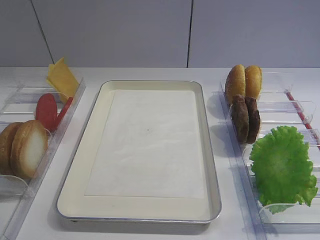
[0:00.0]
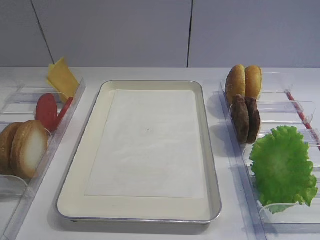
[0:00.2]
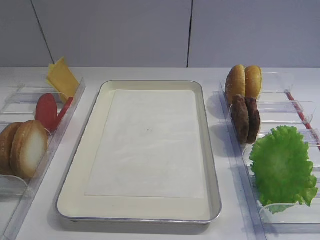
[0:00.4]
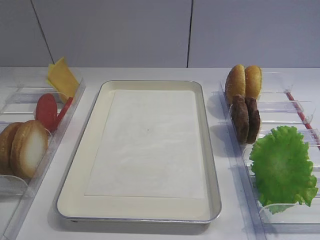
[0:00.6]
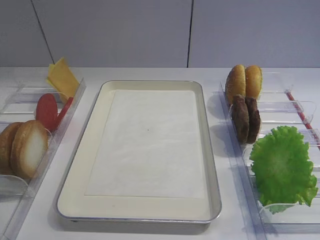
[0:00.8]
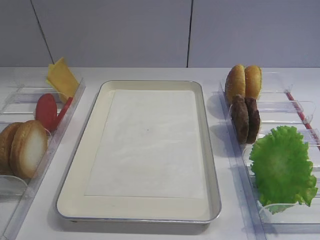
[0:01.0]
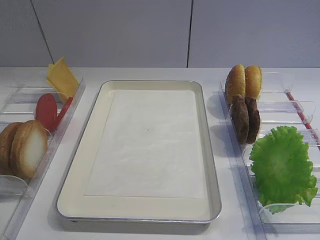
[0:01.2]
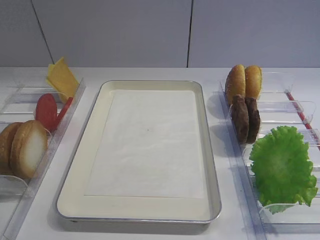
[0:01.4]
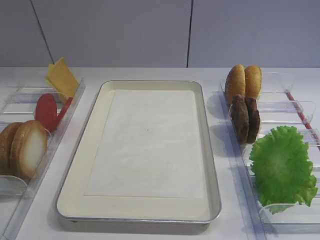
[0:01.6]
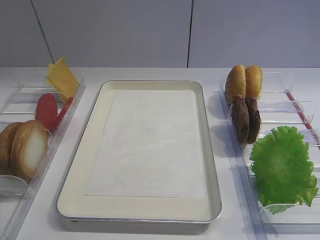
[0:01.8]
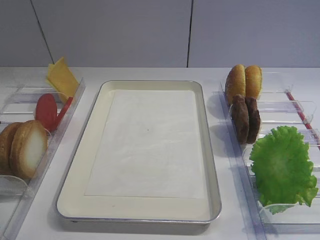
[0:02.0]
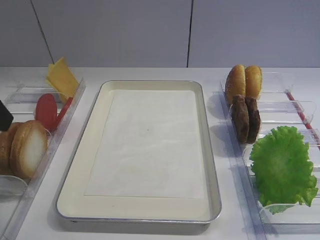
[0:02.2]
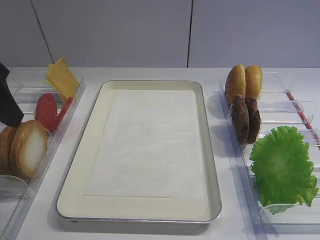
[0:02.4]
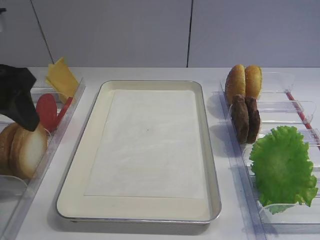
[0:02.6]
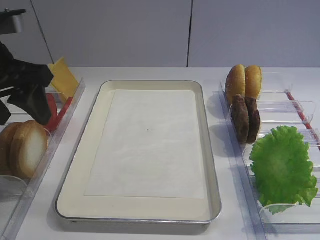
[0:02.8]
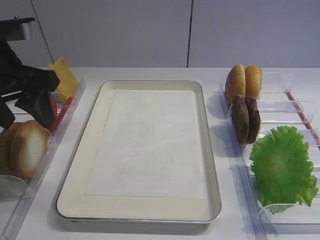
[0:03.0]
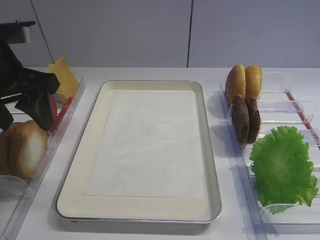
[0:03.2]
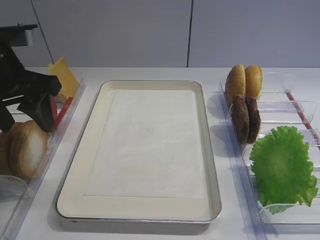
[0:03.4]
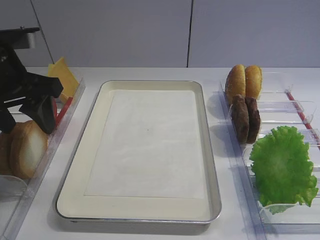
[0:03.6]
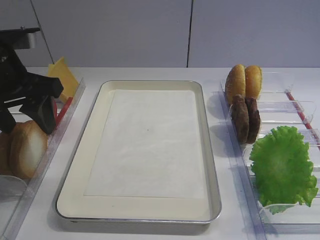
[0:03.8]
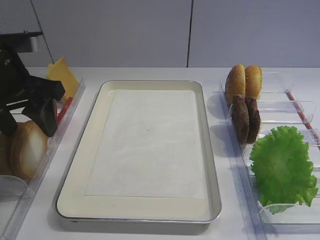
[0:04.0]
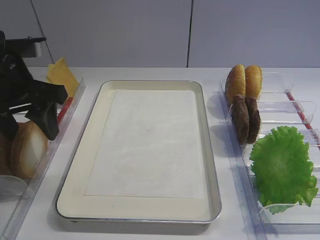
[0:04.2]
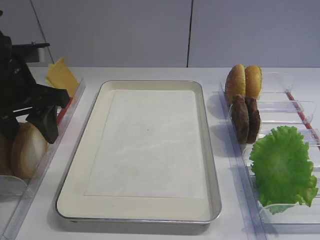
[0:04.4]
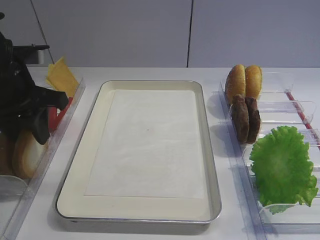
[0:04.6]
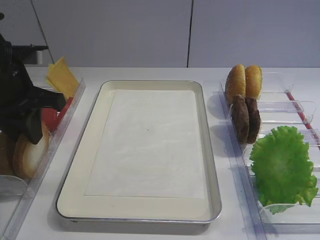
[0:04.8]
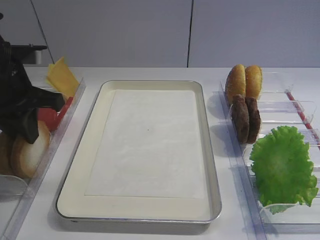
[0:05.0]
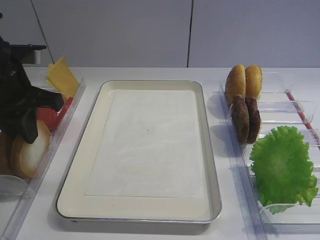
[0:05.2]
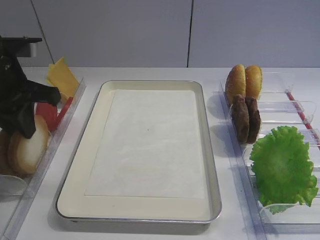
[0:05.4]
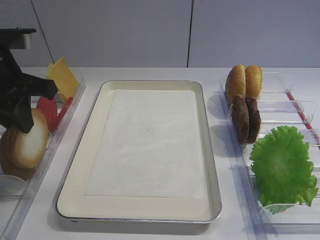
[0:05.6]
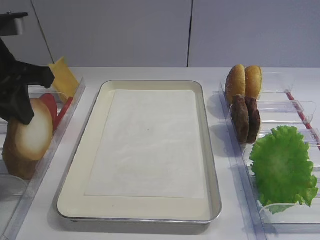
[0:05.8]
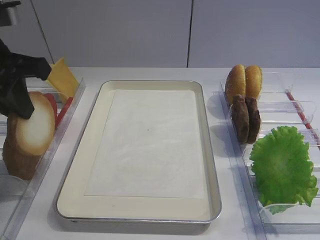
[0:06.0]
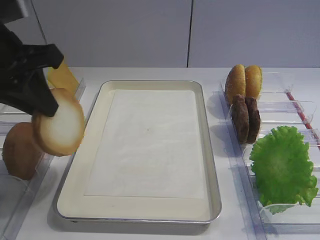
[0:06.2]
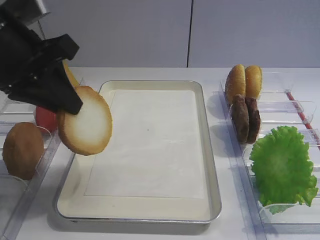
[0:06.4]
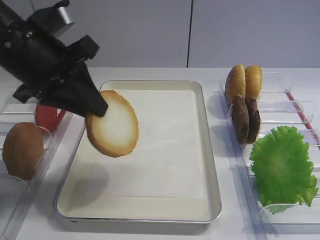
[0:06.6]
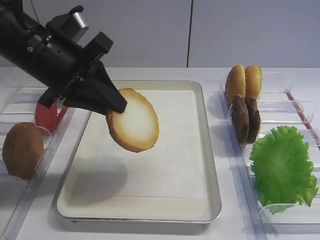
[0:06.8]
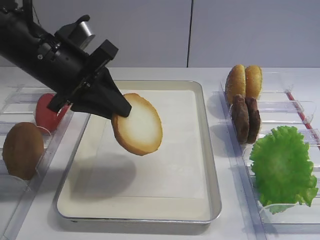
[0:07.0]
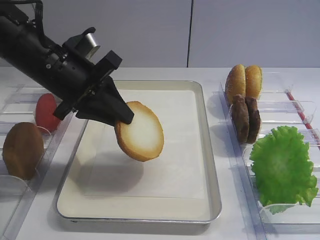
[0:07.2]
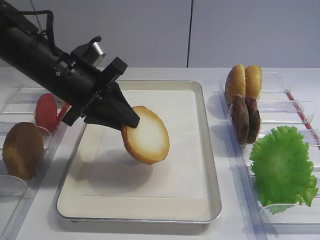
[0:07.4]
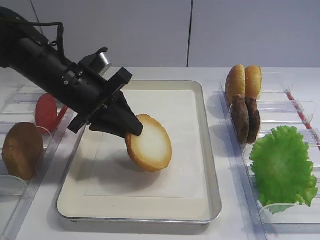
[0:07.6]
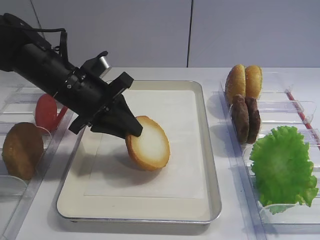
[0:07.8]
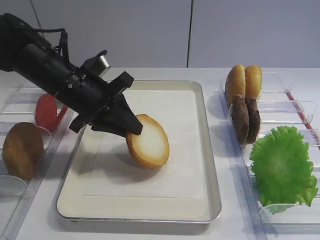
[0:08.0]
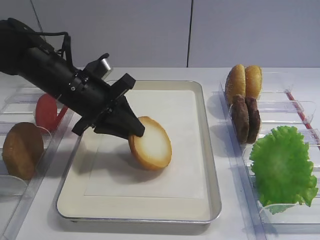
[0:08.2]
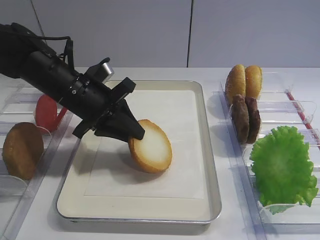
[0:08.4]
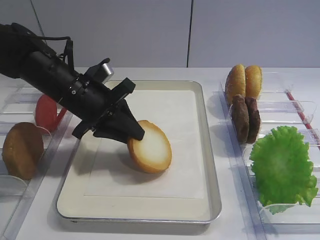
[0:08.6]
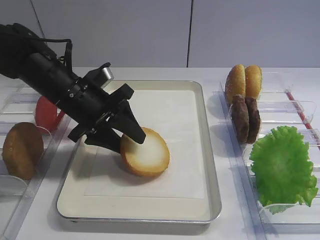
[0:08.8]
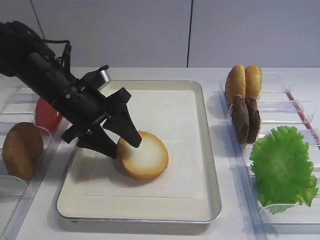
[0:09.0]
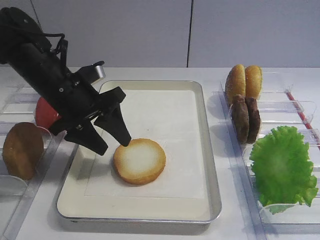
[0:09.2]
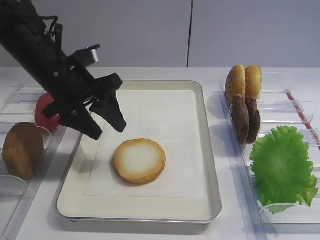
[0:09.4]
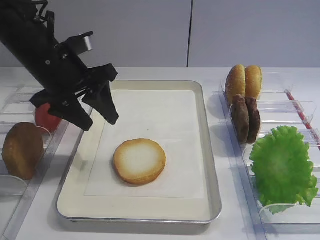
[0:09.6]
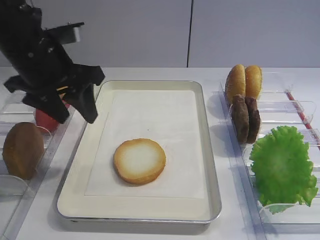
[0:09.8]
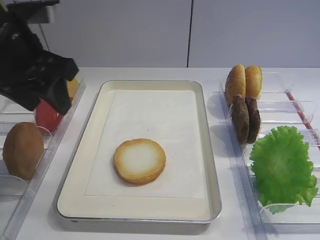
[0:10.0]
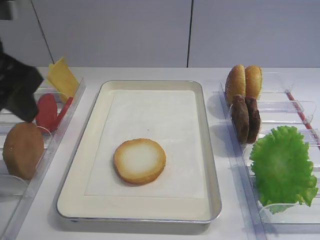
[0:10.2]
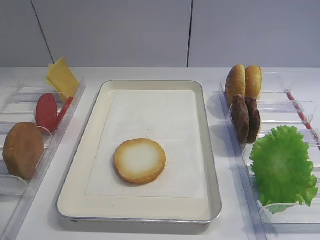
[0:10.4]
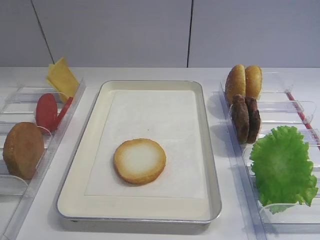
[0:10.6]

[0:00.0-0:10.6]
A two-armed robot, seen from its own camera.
Step, 0:00.0 to 0:05.8: Pick up the bread slice with the left gripper.
Step, 0:06.2 to 0:09.6: Place the bread slice on the tray with the left gripper.
0:01.6 to 0:03.0: The left gripper travels forward by some 15 cm.
0:03.0 to 0:04.6: The left gripper closes its fingers.
0:04.6 to 0:06.0: The left gripper goes approximately 5 cm upward, and closes up.
0:06.0 to 0:07.6: The left gripper travels downward, to the right and forward by some 15 cm.
0:07.6 to 0:09.0: The left gripper opens its fingers.
0:09.0 to 0:10.6: The left gripper moves backward, upward and to the left, roughly 30 cm.

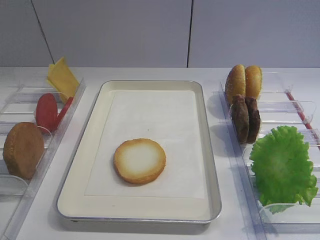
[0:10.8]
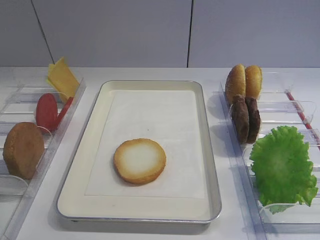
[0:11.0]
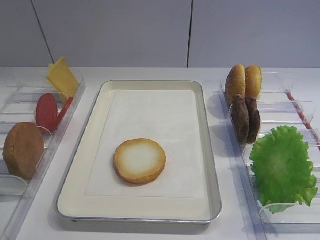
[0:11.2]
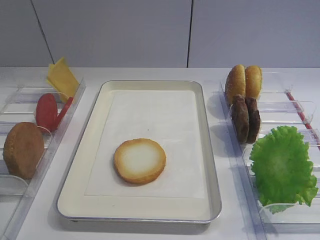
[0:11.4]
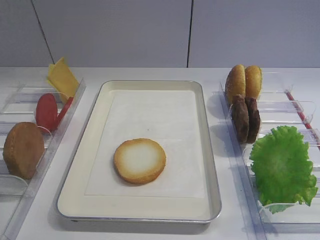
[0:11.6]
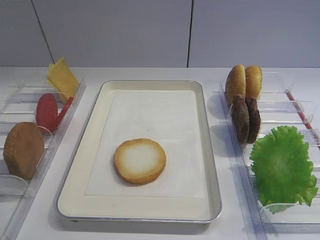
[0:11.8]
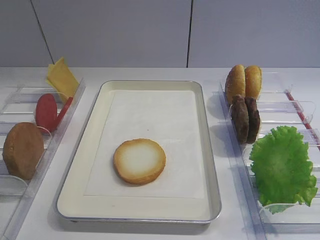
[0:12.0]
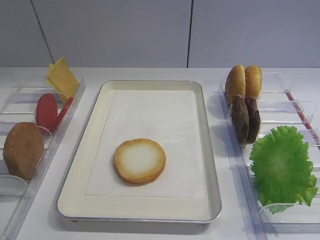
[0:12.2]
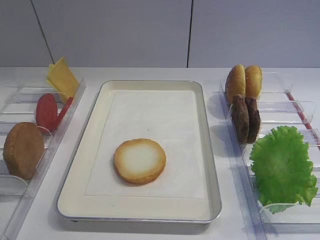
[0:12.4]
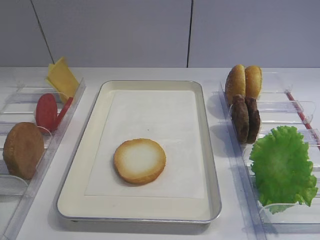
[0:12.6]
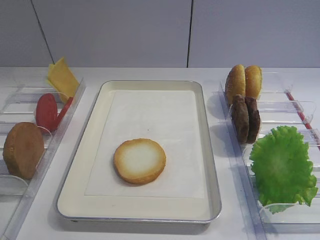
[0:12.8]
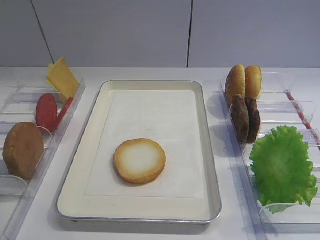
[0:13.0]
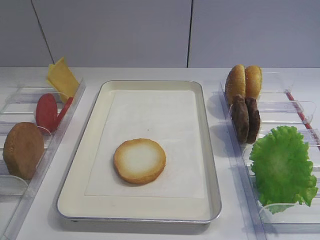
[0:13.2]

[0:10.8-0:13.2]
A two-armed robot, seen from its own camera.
0:12.0 to 0:13.2: Both grippers stay about where they are.

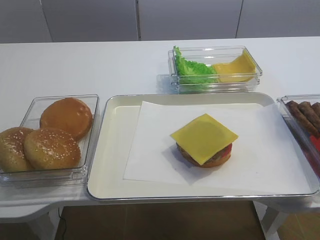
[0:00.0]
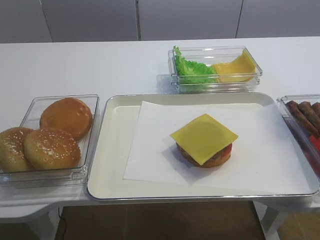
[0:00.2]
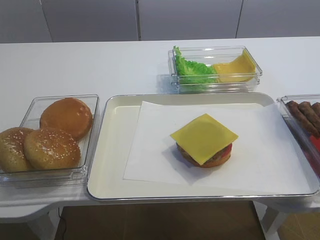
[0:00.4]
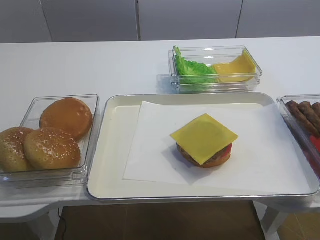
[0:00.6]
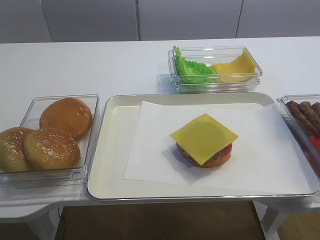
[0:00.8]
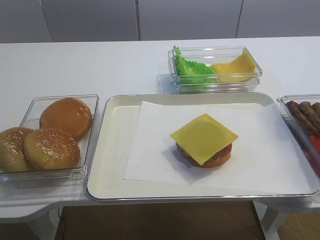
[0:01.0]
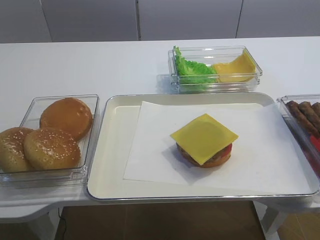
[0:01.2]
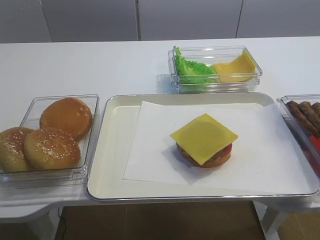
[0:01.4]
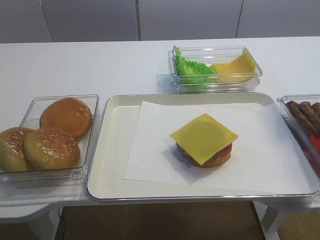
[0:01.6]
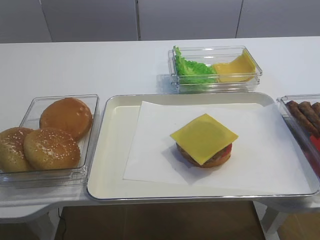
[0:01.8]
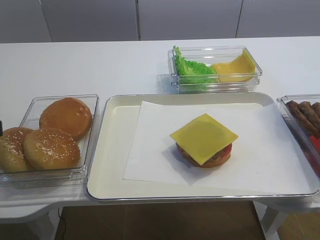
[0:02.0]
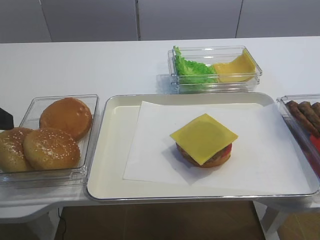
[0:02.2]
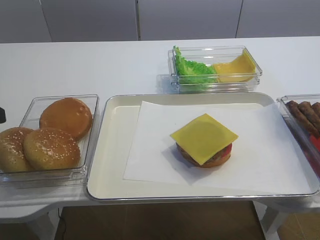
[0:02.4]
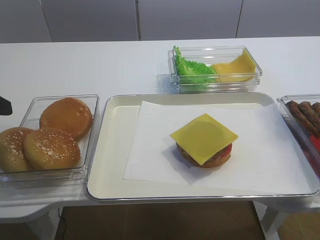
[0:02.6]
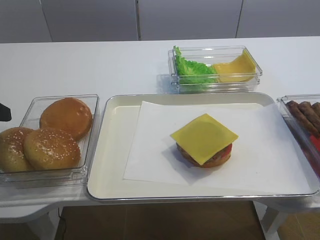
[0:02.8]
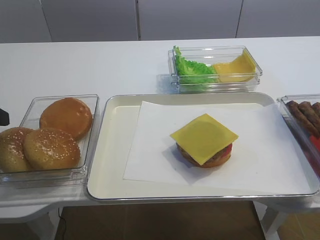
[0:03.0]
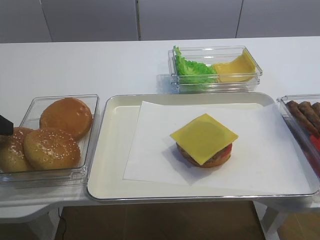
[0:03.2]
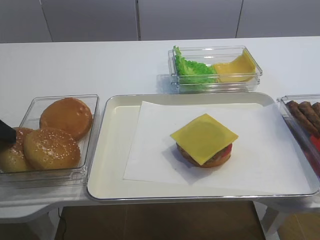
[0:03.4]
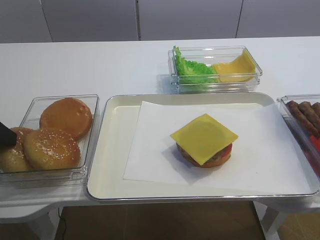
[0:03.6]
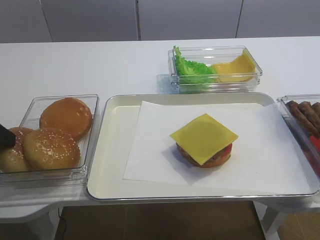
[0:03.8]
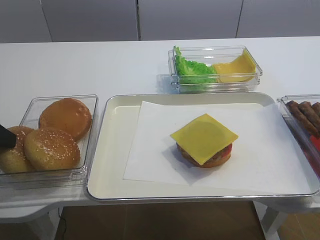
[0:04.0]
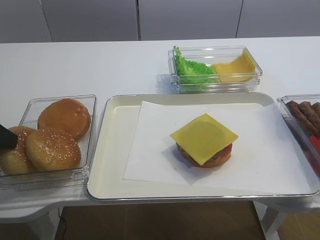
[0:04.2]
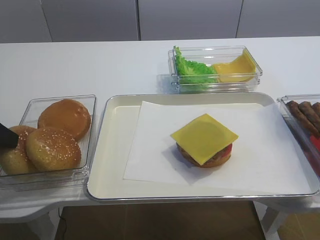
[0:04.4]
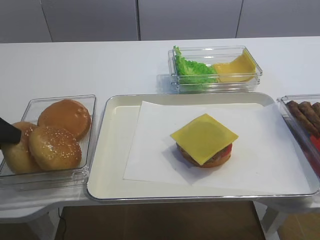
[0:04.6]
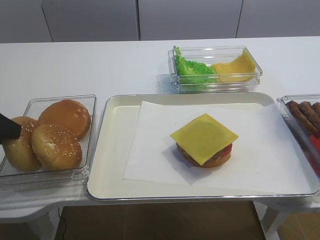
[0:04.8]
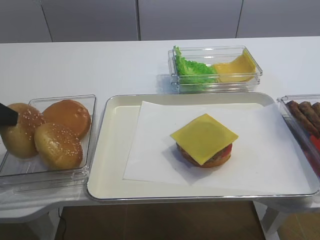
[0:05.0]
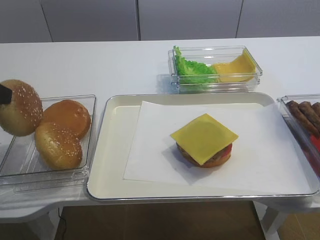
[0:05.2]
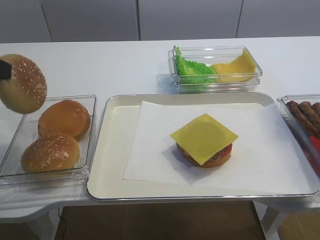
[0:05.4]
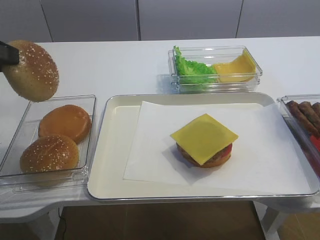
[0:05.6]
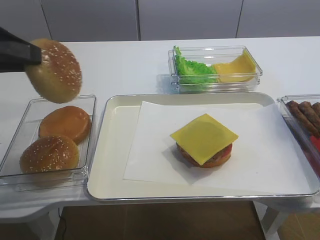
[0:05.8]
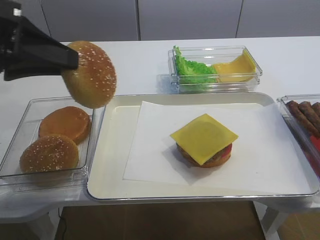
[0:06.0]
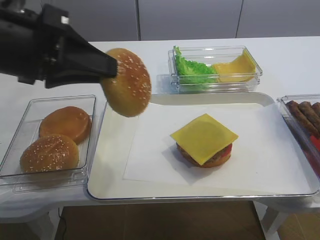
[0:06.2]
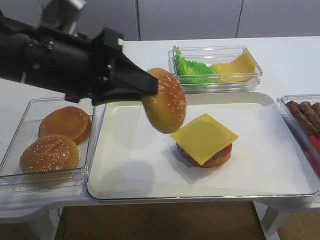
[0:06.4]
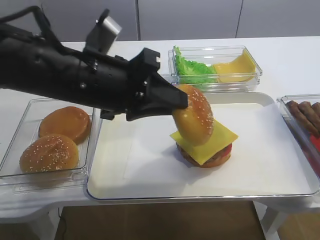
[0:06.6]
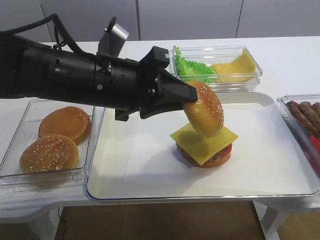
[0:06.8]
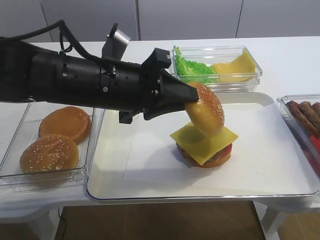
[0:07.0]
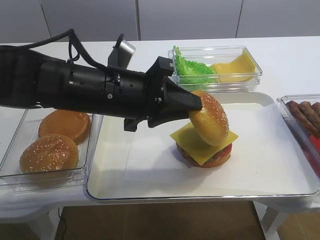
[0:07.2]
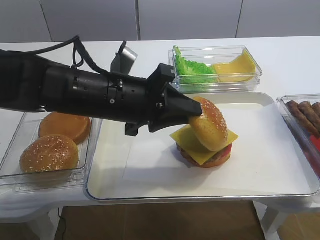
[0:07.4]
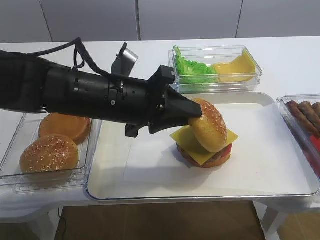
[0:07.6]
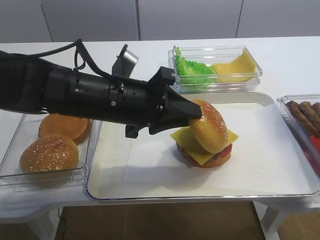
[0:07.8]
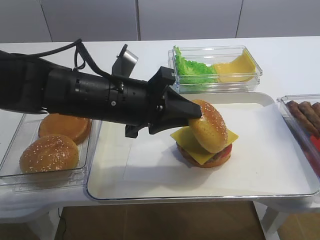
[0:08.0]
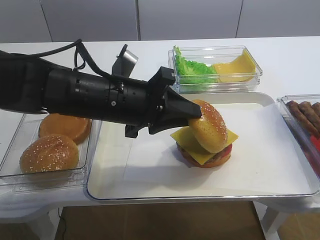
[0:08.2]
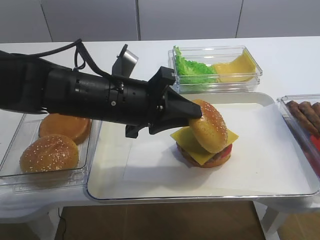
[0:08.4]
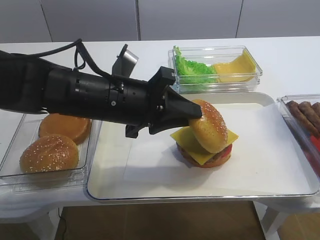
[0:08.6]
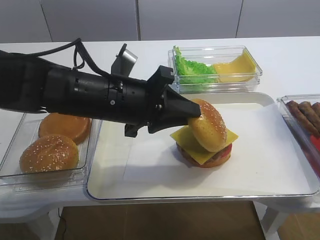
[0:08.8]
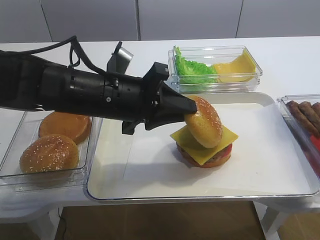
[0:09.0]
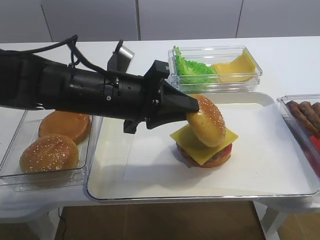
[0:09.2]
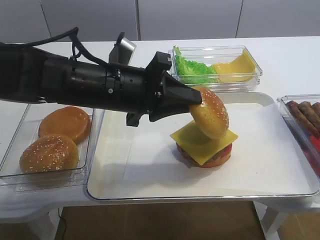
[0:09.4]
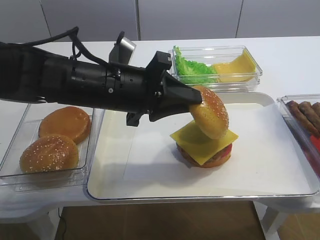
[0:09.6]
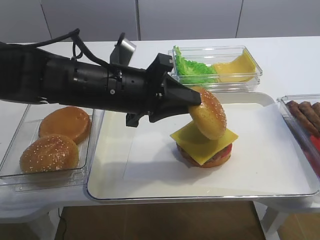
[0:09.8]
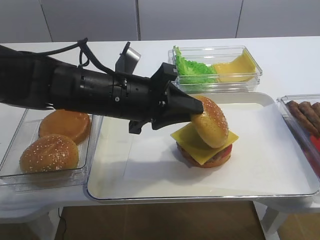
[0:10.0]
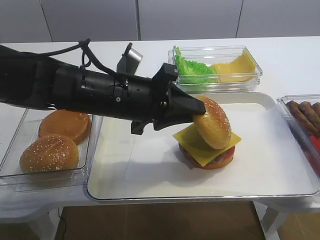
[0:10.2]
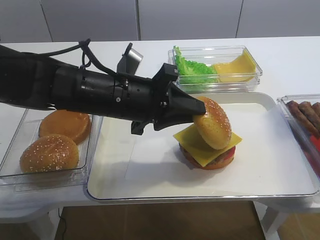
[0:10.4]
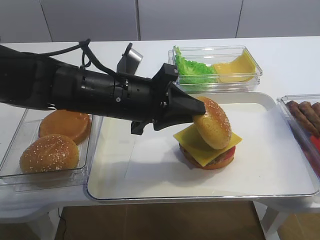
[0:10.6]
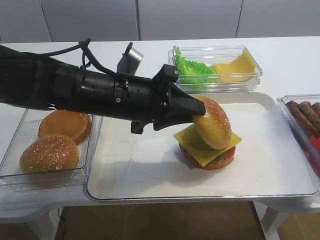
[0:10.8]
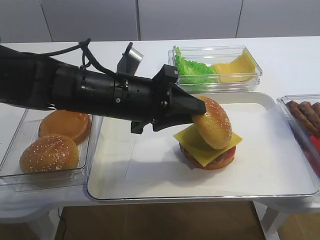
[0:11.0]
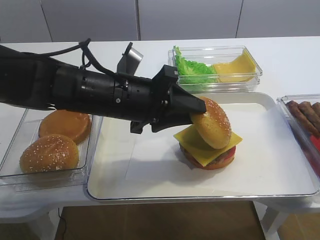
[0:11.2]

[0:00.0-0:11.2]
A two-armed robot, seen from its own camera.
Step, 0:00.0 to 0:05.0: Pick up the hamburger lid with the left gripper.
0:03.2 to 0:04.8: The left gripper closes.
0:04.8 to 0:06.4: The left gripper shifts approximately 15 cm to the right.
0:06.4 to 0:08.0: The left gripper travels downward and to the right by about 10 cm.
0:08.0 to 0:09.6: The right gripper closes.
0:09.6 to 0:11.2: The right gripper closes up.
